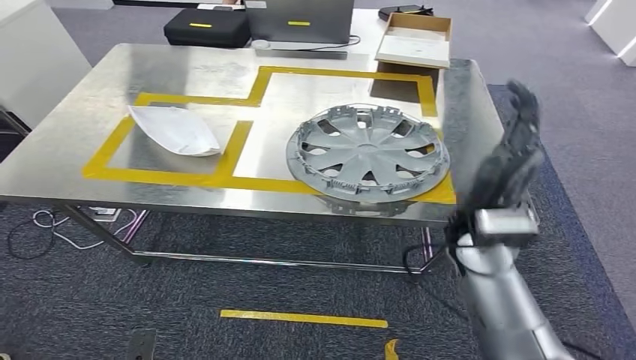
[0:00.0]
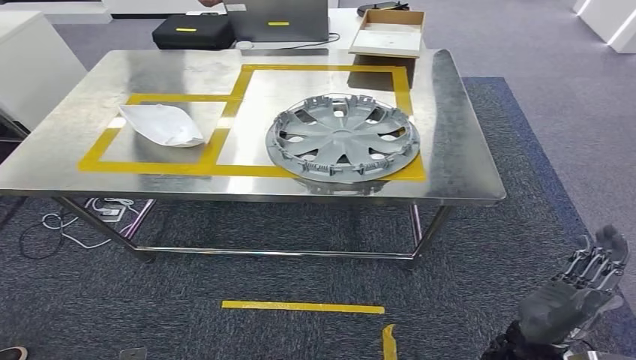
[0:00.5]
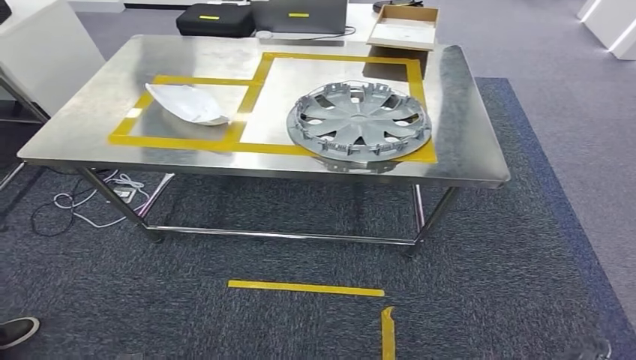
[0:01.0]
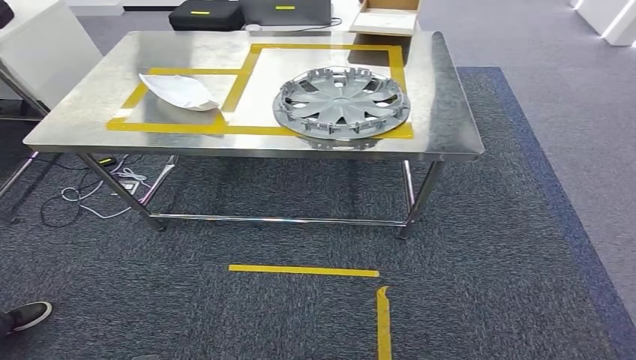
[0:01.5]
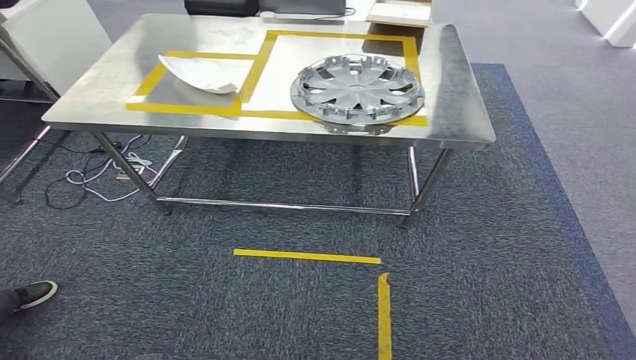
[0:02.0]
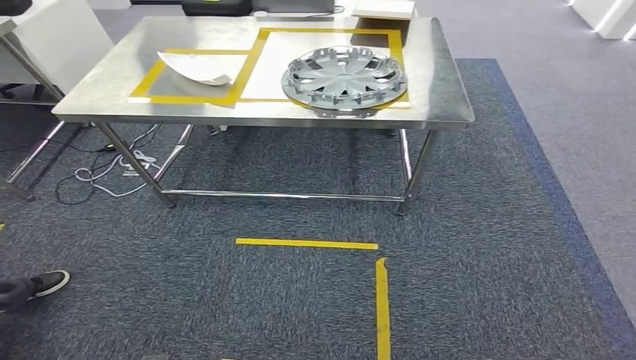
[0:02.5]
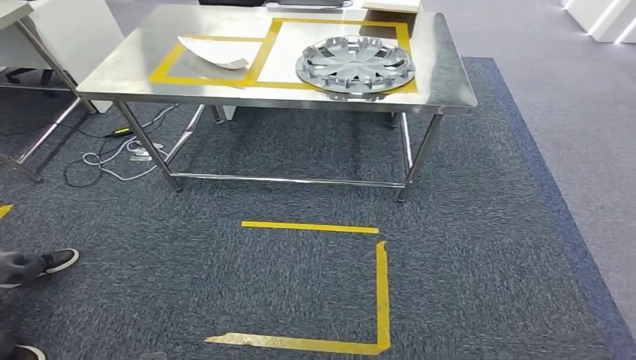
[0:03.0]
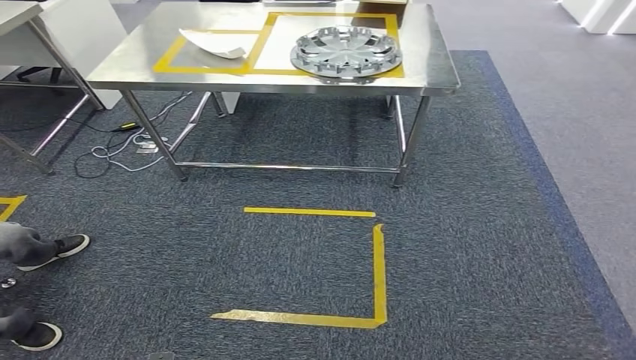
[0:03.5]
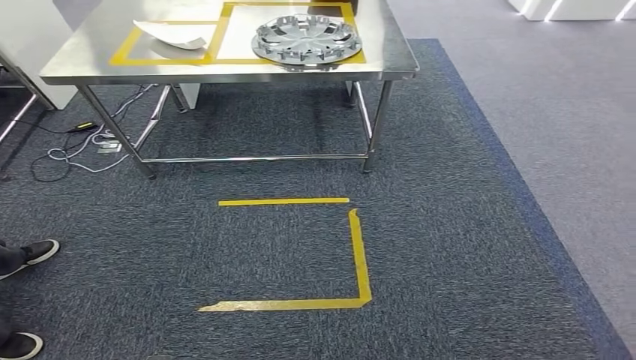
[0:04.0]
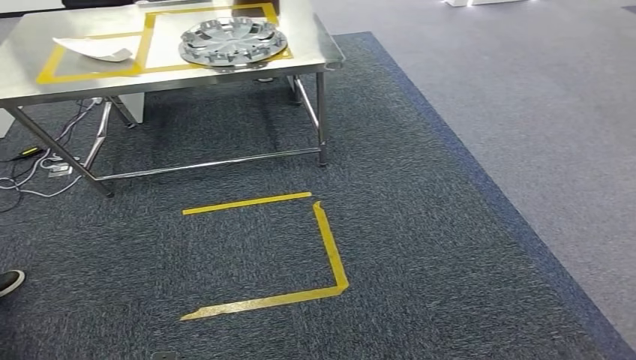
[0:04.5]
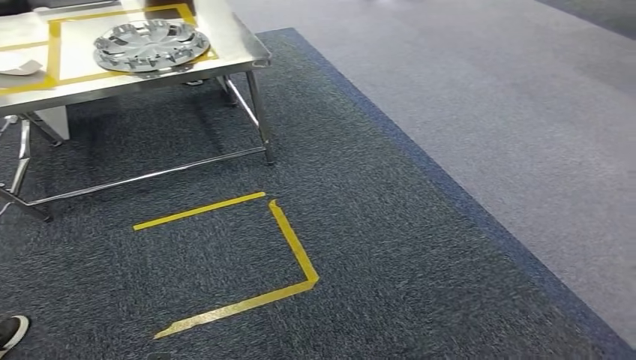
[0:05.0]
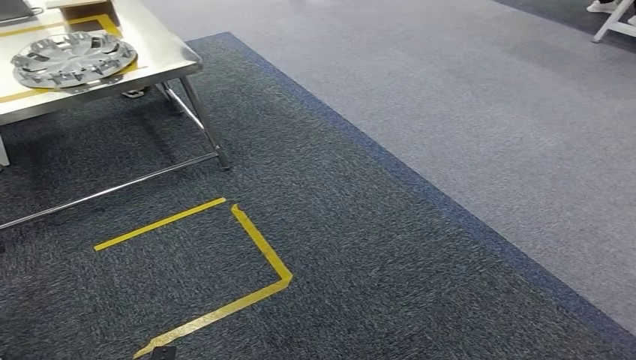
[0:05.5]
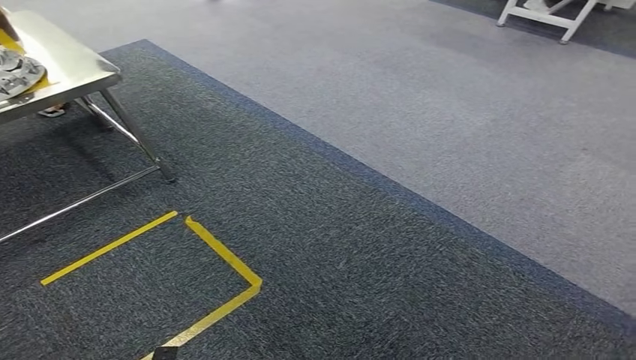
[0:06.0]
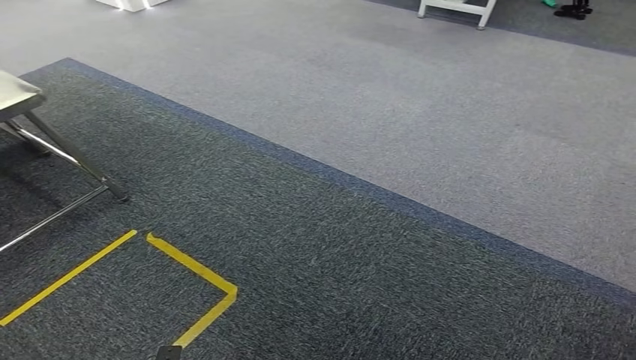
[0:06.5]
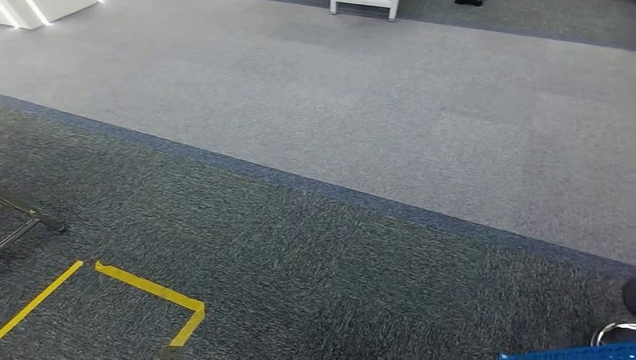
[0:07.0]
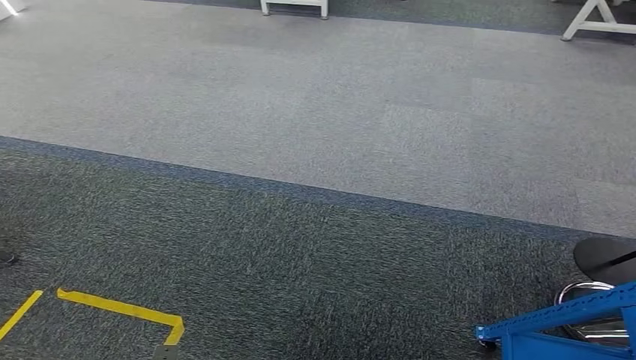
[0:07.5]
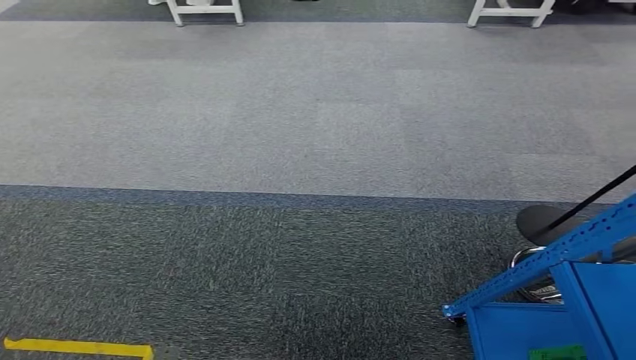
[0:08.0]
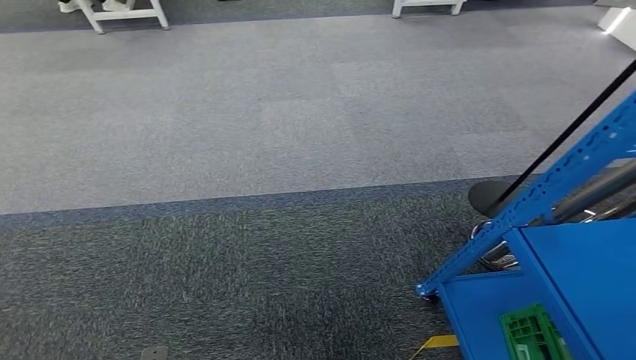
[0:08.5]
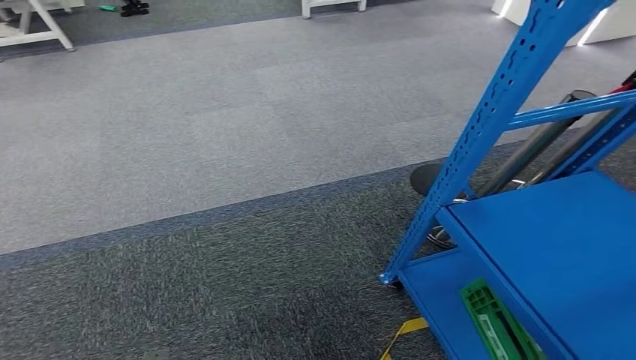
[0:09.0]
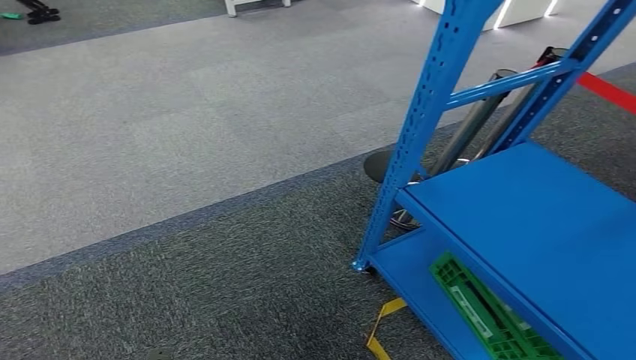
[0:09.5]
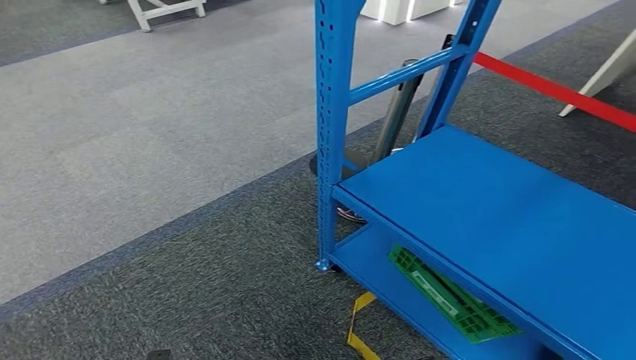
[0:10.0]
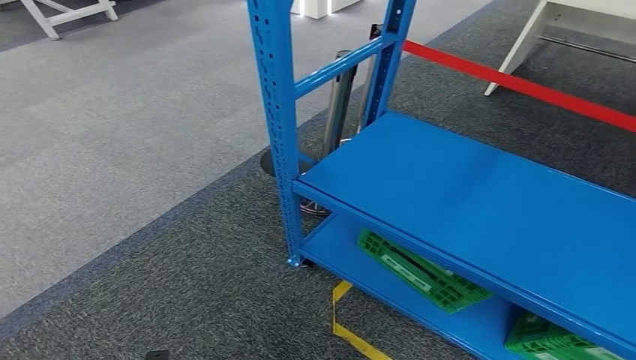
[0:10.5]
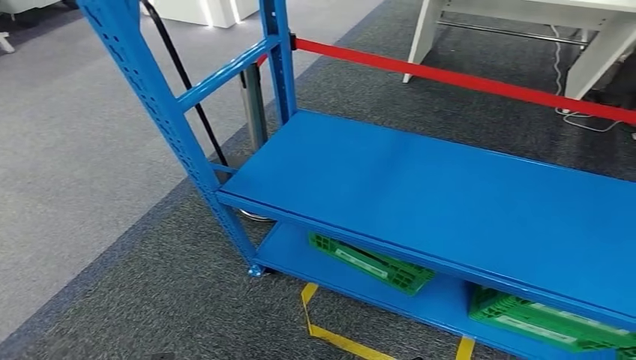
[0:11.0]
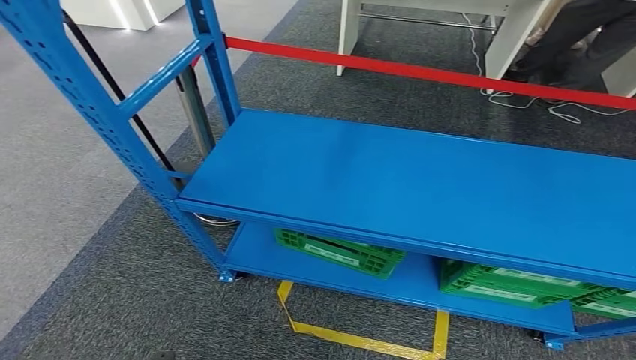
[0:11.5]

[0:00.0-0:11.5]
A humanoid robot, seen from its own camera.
Step, 0:01.5 to 0:11.5: Move to the initial position at the workbench.
